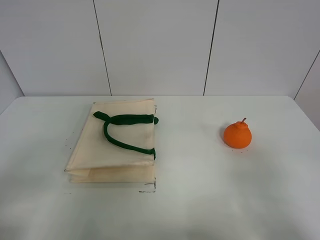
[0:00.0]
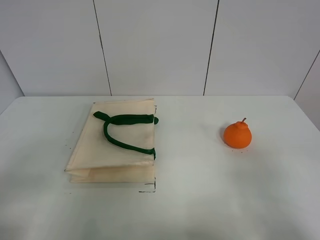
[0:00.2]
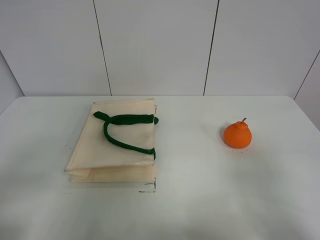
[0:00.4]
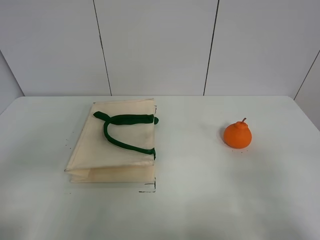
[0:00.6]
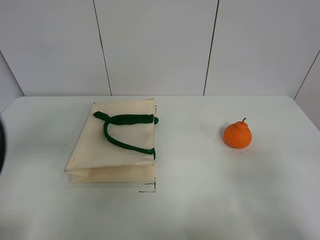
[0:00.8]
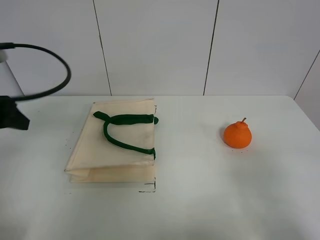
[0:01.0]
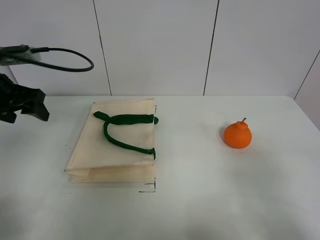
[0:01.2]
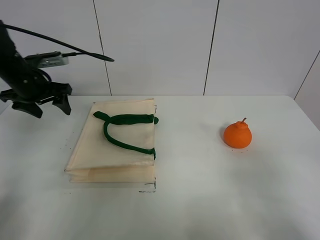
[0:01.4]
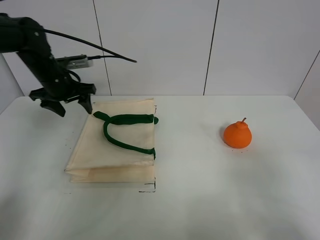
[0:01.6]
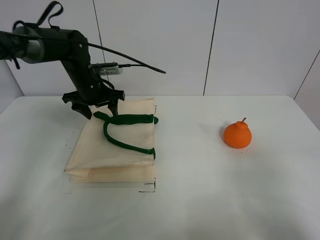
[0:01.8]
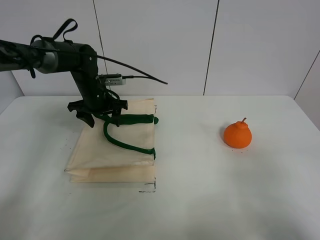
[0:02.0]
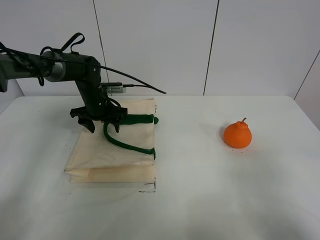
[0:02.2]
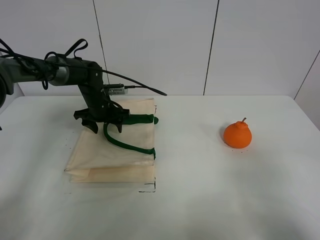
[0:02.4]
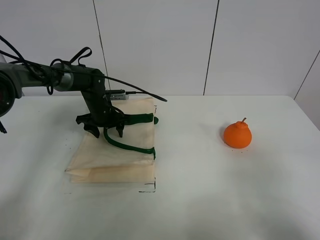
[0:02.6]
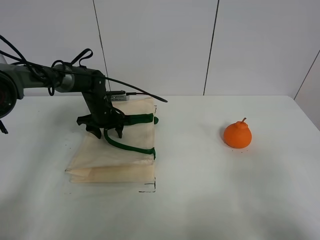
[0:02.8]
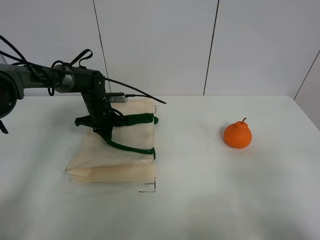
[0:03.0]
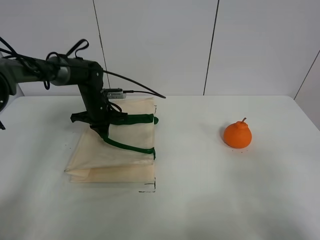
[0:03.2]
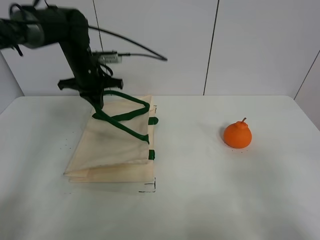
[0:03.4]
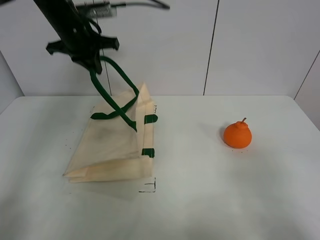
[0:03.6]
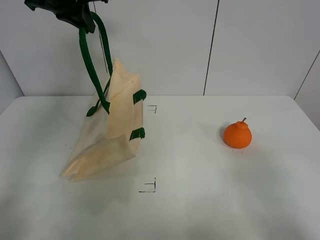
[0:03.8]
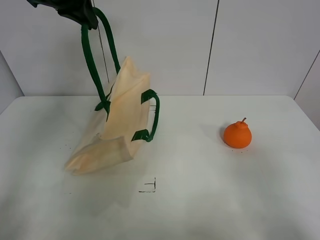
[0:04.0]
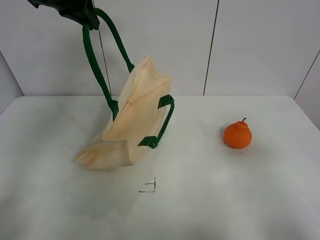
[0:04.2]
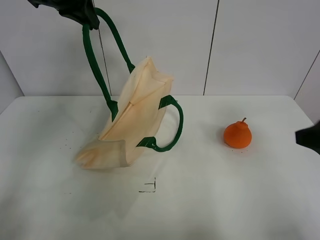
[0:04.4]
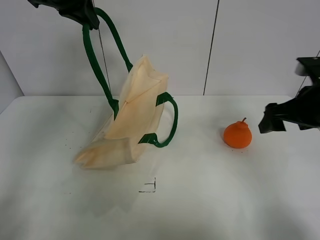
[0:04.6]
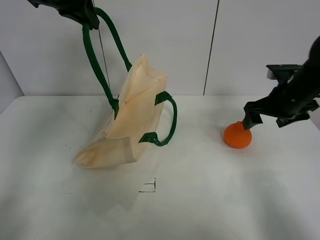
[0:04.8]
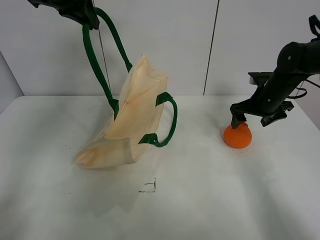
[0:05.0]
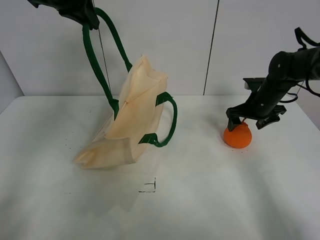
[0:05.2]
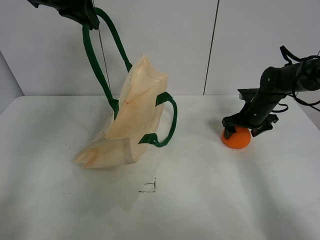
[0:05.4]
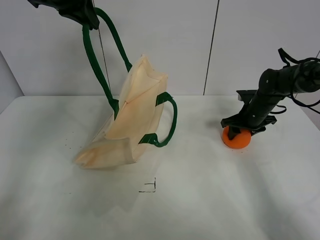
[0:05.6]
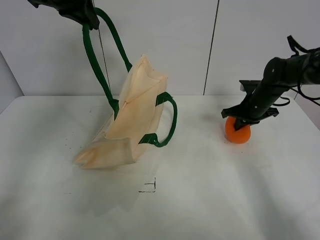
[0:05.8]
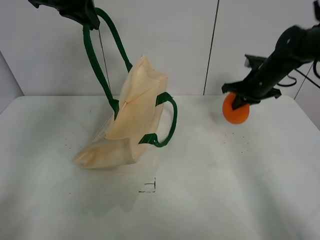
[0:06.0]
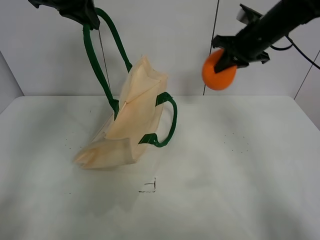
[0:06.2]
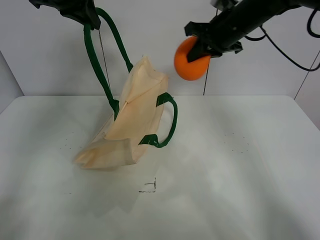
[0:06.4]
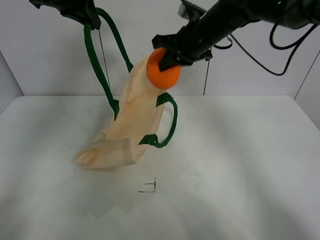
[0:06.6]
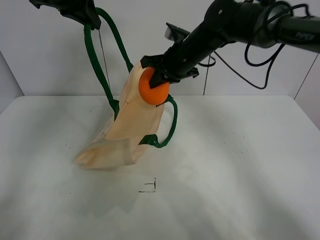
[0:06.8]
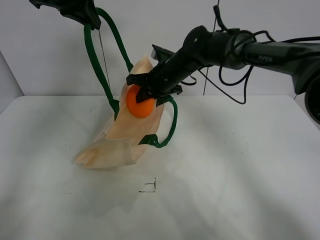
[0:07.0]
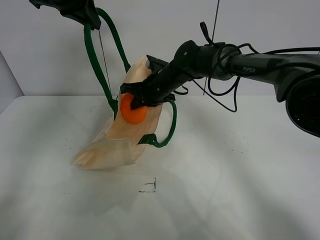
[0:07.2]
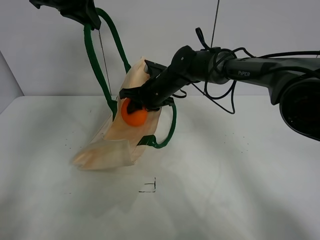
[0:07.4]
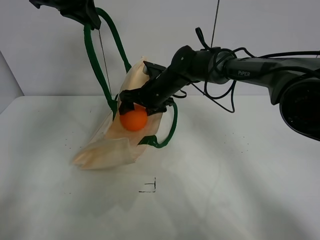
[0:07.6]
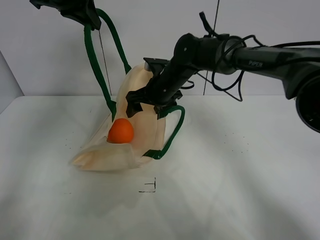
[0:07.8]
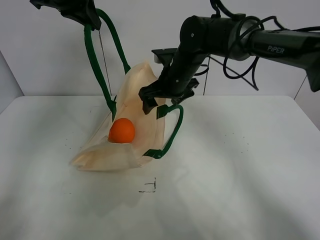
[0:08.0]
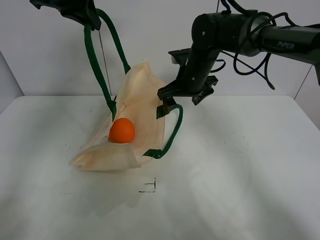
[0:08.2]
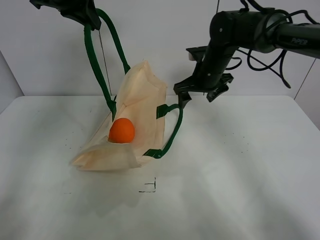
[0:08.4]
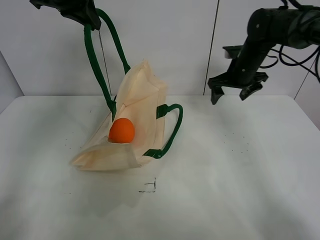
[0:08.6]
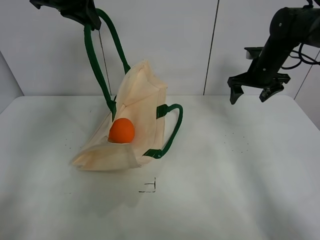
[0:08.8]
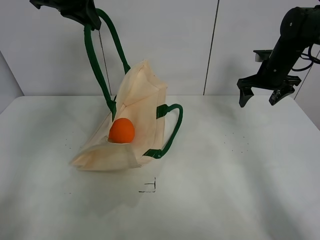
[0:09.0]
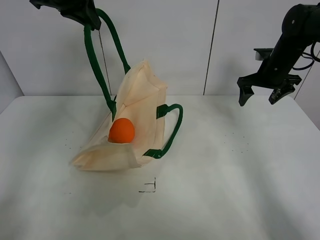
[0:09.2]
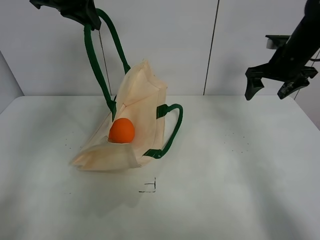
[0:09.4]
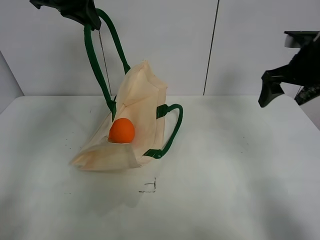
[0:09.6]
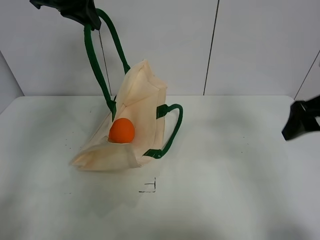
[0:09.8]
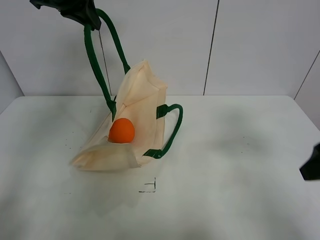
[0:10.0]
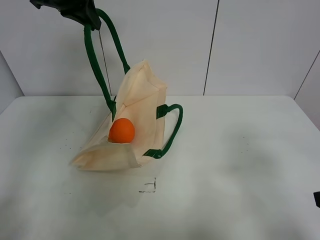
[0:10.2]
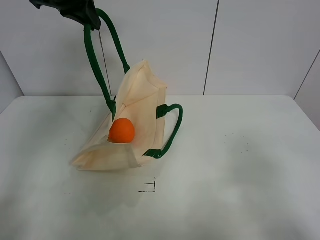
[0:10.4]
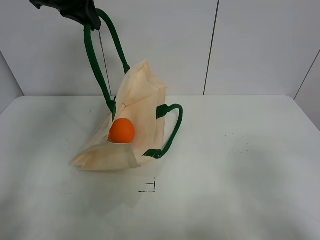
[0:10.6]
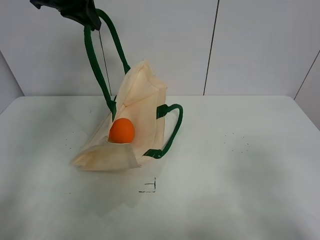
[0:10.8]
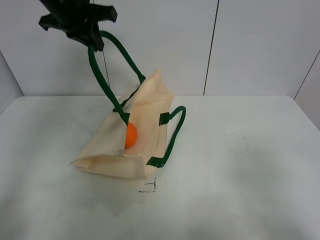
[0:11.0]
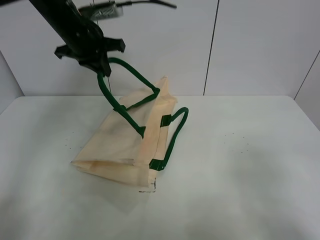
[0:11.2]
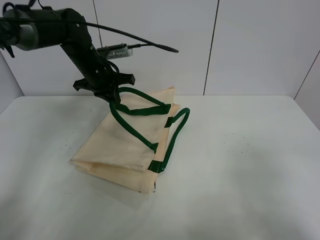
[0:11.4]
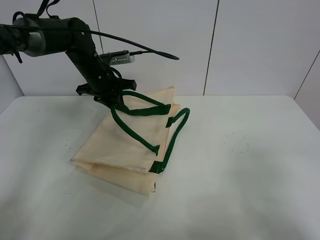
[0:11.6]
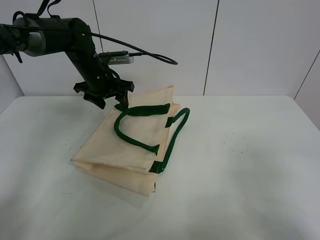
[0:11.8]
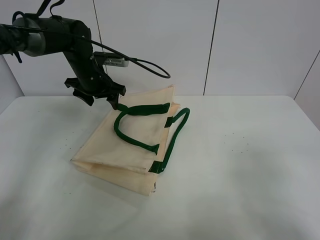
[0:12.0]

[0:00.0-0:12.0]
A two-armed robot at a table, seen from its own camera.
Task of the whole recording: open the white linen bag and put the orange in the bag.
Step, 0:00.0 to 0:03.6: Lift the handbag with left gripper.
Step, 0:03.8 to 0:05.6: Grasp the orange with right gripper.
Step, 0:05.8 to 0:07.8: Place the orange in the handbag with right gripper.
Step, 0:08.0 to 0:11.8: Put down the handbag with left gripper.
0:00.0 to 0:01.6: The left gripper travels forward by approximately 40 cm.
0:01.6 to 0:03.0: The left gripper shifts about 15 cm downward and to the right, and closes.
0:03.0 to 0:04.4: The left gripper goes roughly 35 cm upward; the right gripper shifts some 15 cm forward.
0:04.4 to 0:06.0: The right gripper moves forward, approximately 25 cm, and closes its fingers.
0:06.0 to 0:07.6: The right gripper is displaced to the left by some 25 cm, and opens up.
0:07.6 to 0:09.0: The right gripper heads to the right, covering approximately 30 cm.
0:09.0 to 0:10.4: The right gripper travels backward by approximately 40 cm.
0:10.4 to 0:12.0: The left gripper heads downward, covering roughly 20 cm, and opens.

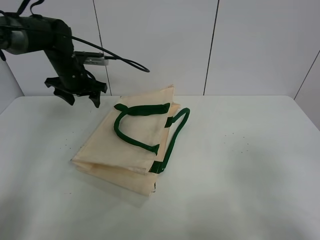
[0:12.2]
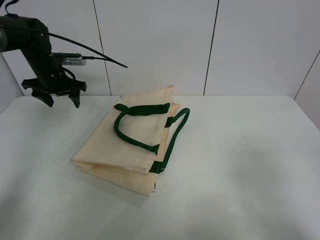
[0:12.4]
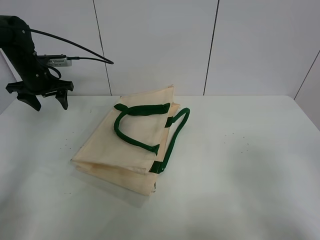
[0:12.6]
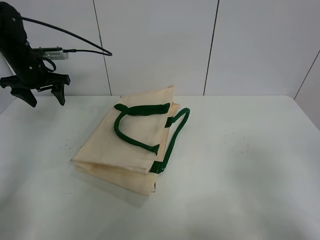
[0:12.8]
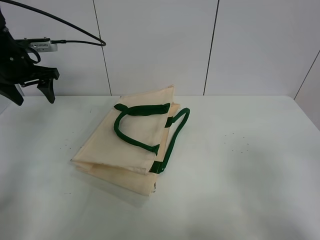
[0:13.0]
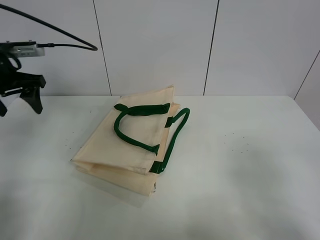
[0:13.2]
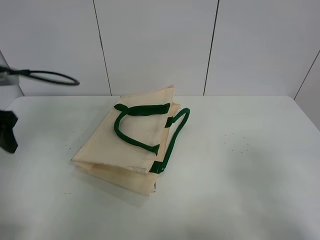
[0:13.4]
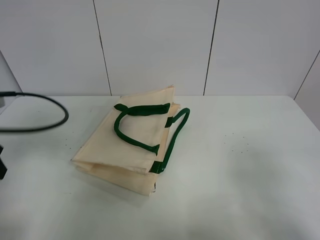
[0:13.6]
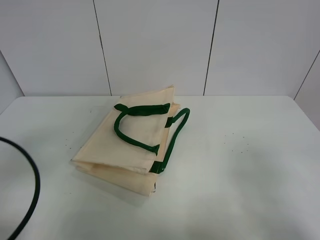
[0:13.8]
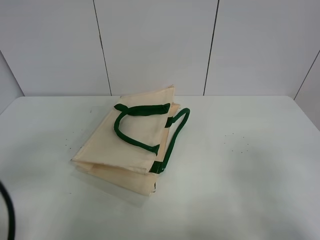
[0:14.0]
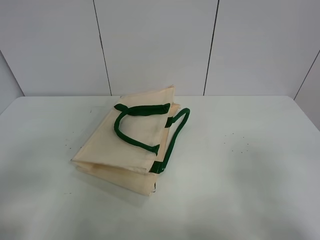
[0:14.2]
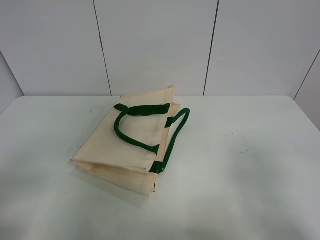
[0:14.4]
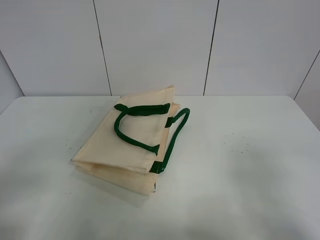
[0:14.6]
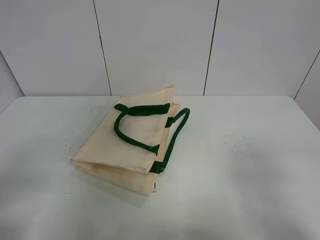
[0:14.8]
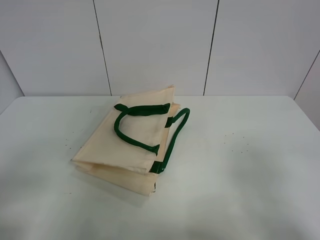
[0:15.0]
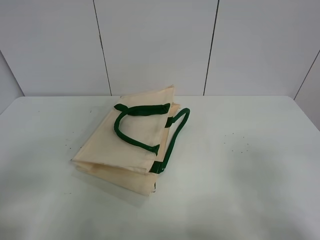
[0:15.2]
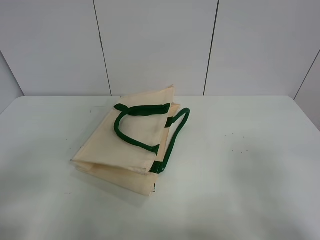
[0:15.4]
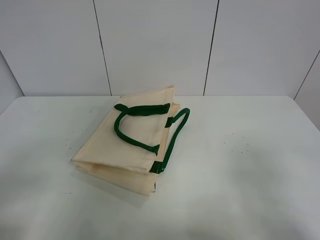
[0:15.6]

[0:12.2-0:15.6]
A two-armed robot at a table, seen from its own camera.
Task of the whole recording: open the white linen bag and put the orange in the bag.
0:12.2 to 0:13.8: The left gripper travels backward by roughly 40 cm.
0:13.8 to 0:15.6: The left gripper goes approximately 10 cm backward.
